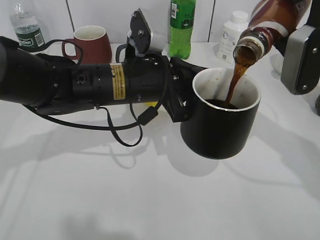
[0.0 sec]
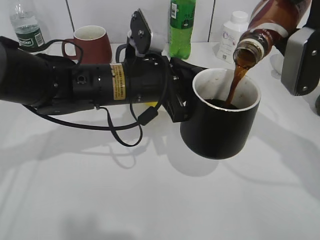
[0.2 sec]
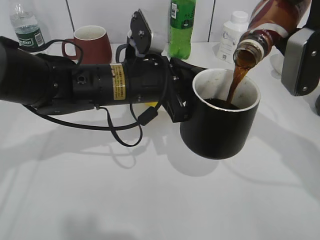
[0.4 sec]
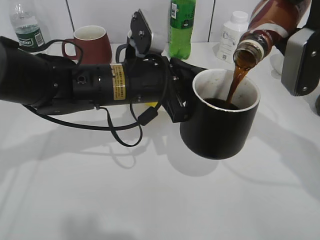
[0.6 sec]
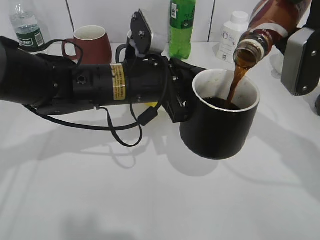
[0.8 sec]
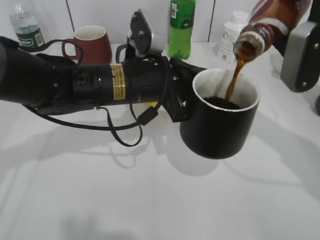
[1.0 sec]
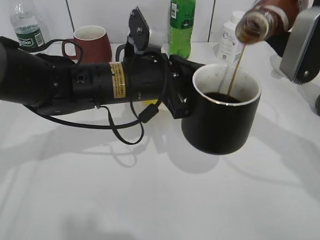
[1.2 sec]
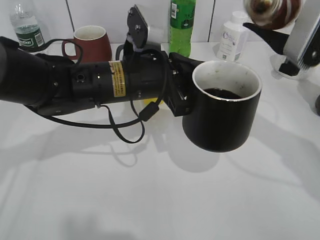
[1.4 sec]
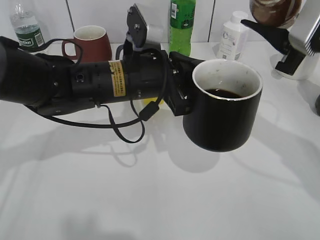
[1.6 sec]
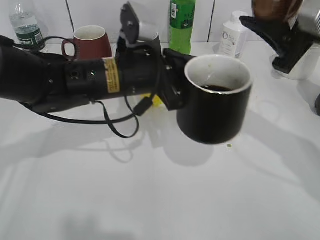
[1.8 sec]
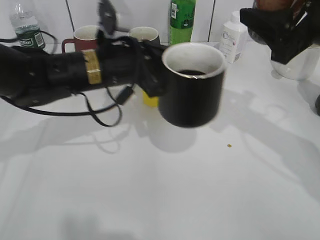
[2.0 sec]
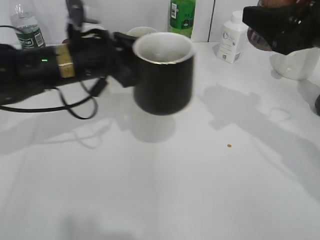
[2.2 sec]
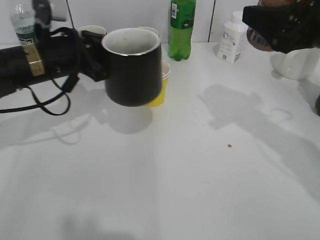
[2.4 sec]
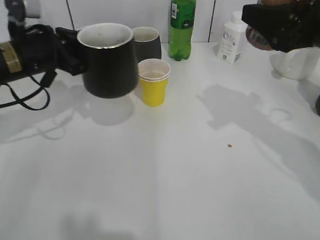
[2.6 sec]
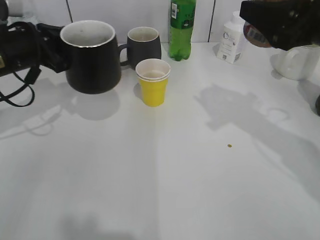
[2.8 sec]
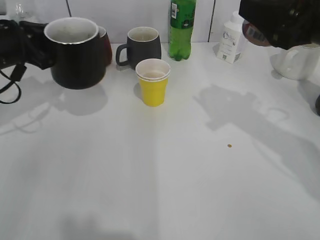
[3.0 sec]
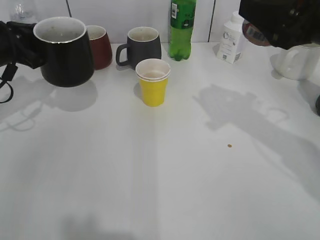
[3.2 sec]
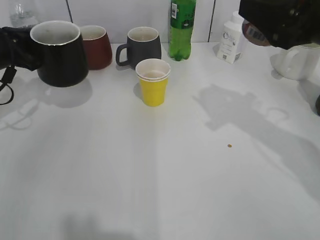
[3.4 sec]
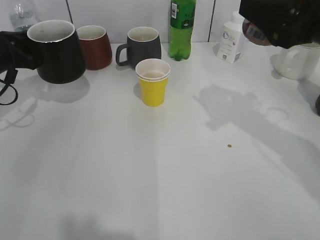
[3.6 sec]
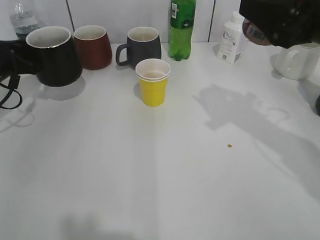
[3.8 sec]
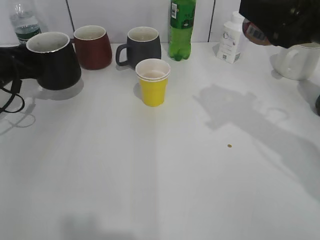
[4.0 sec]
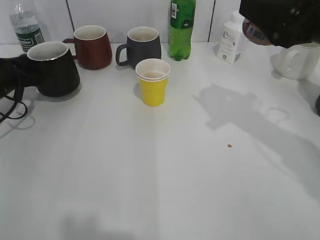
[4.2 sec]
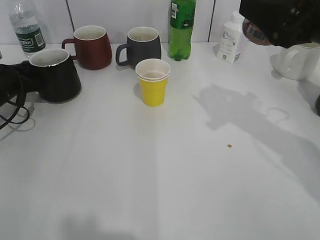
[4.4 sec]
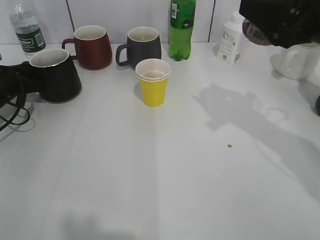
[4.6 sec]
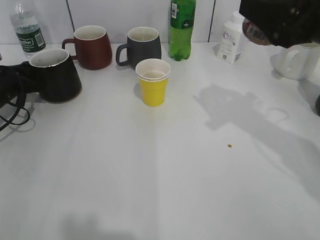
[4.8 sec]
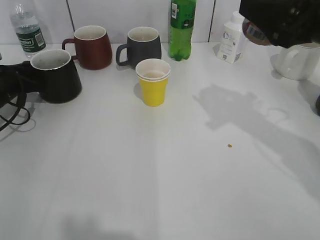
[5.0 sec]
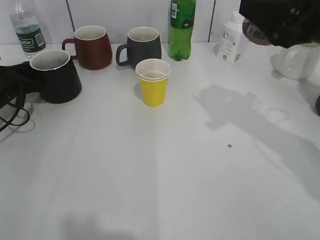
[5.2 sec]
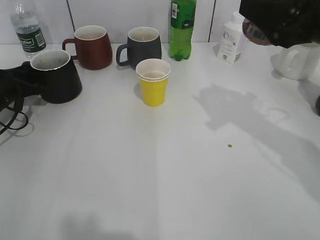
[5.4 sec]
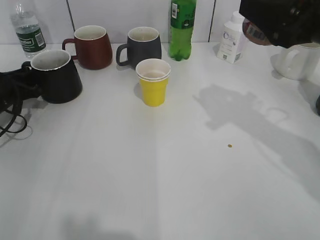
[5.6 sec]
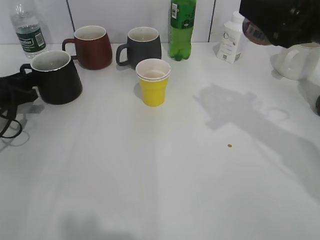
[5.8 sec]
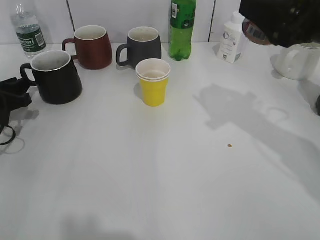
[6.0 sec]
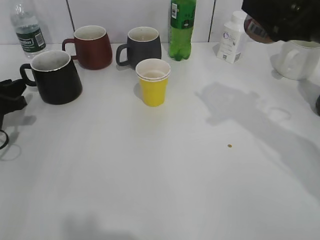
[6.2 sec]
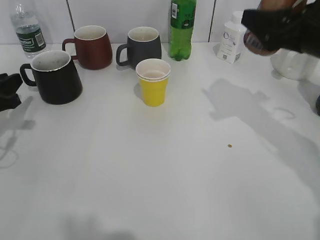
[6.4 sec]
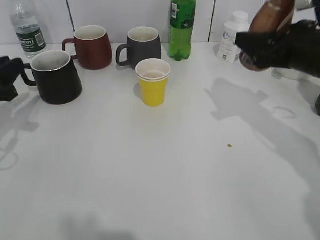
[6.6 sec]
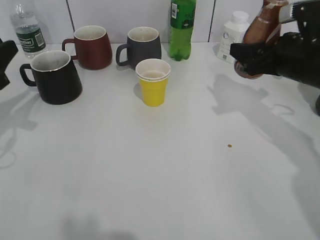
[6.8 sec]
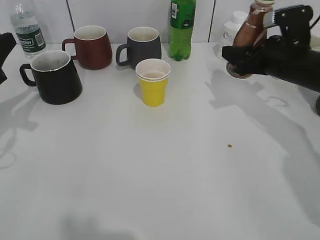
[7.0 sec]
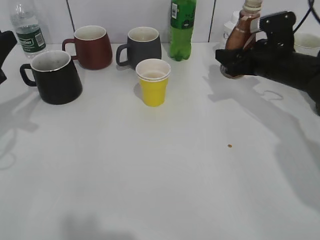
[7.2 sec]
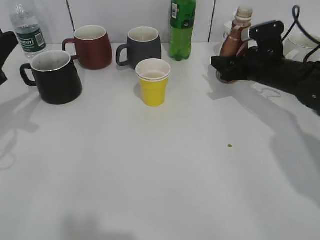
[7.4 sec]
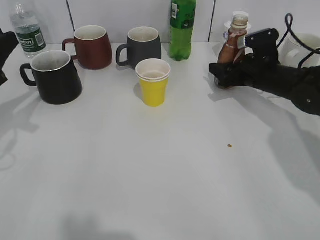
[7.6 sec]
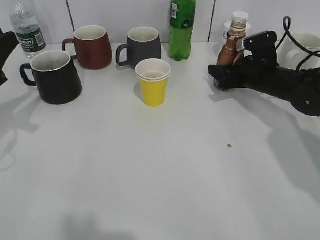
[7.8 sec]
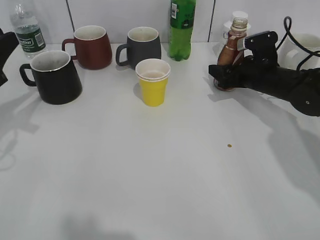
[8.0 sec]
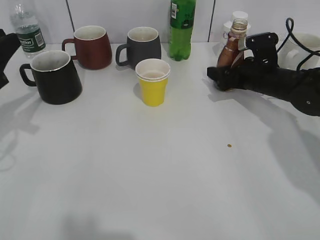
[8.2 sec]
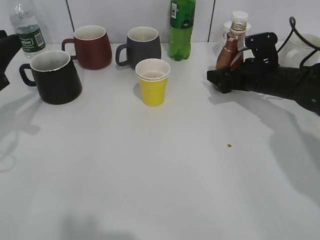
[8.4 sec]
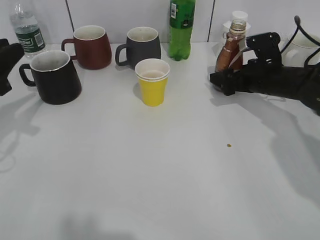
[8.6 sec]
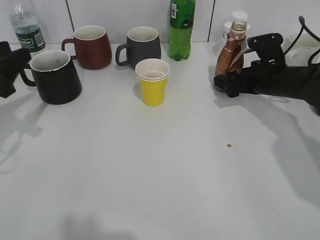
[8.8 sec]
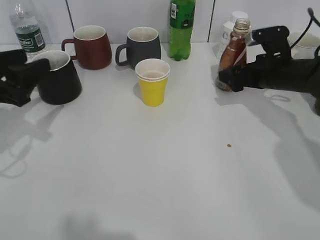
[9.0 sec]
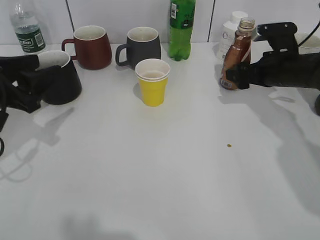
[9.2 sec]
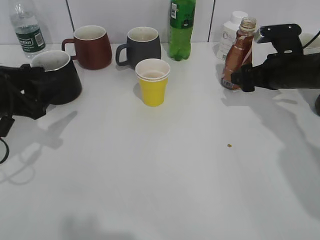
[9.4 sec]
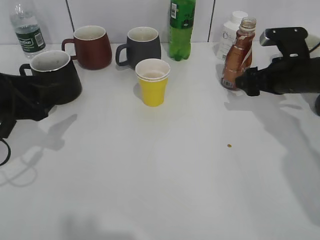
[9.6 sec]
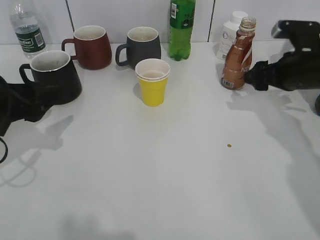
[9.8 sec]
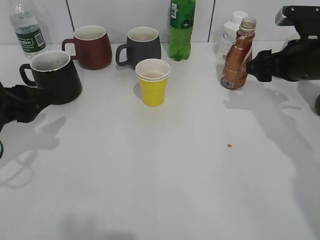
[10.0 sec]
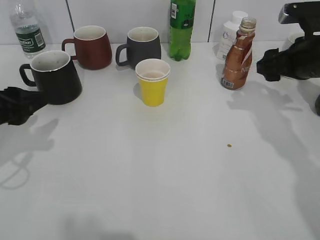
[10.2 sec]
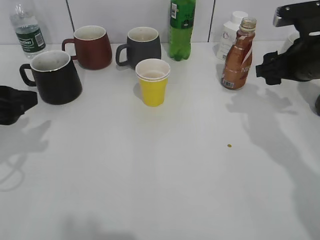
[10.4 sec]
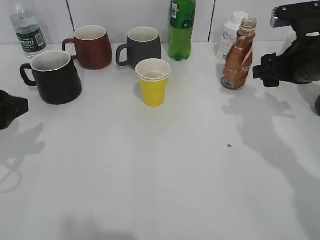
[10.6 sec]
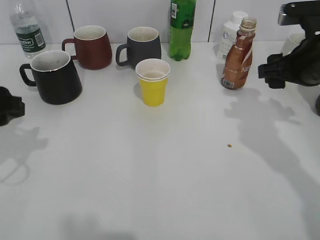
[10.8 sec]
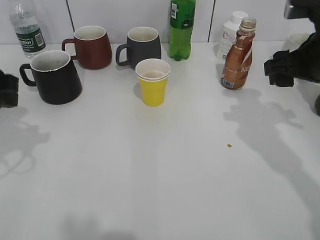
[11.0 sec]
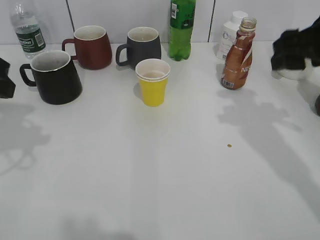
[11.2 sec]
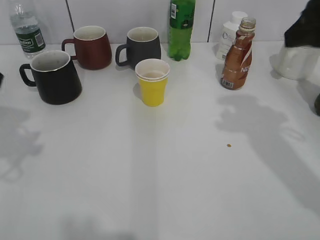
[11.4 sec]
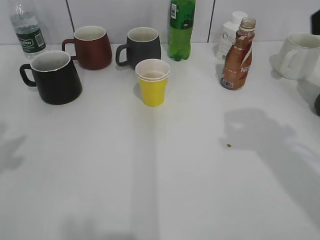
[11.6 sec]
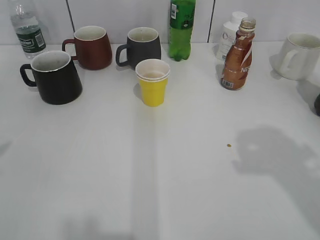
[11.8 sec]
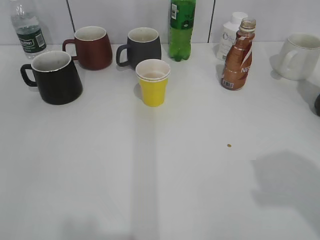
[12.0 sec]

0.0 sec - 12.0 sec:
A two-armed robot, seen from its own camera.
Step, 1.6 sec - 6.0 sec: Place the black cup on the table with left gripper.
Step, 6.2 sec - 9.4 sec: Place the coffee bottle on the table with right gripper.
1.6 sec - 3.0 sec: The left gripper goes about 20 cm to the left.
3.0 sec - 4.4 sec: The left gripper travels downward and to the left by approximately 15 cm.
4.4 sec - 6.0 sec: The left gripper moves backward, about 5 cm, and opens up.
6.0 sec - 7.6 sec: The left gripper goes some 15 cm upward and backward; the right gripper shifts some 25 cm downward and forward.
7.6 sec - 9.0 sec: The right gripper opens up. The left gripper opens.
9.0 sec - 10.4 sec: The right gripper shifts roughly 10 cm upward and backward, and closes its fingers.
10.4 sec - 12.0 sec: The left gripper is displaced upward and backward by roughly 25 cm; the right gripper goes some 30 cm backward and upward.
